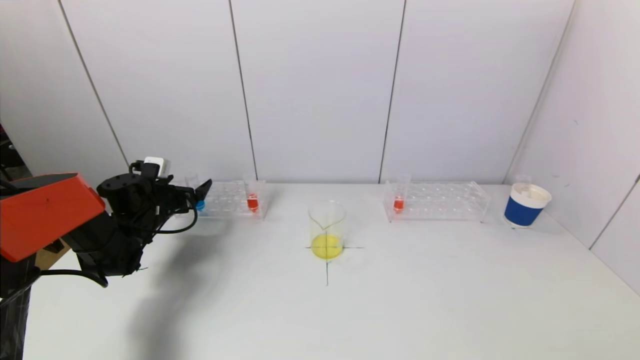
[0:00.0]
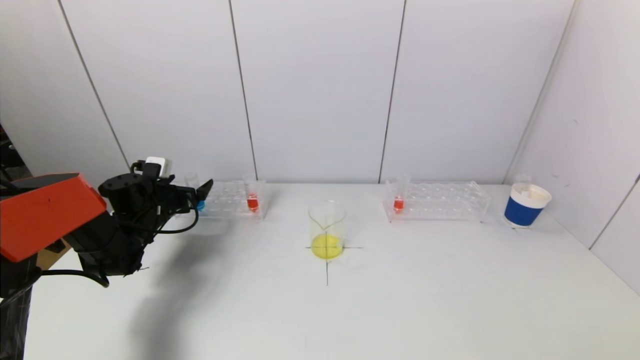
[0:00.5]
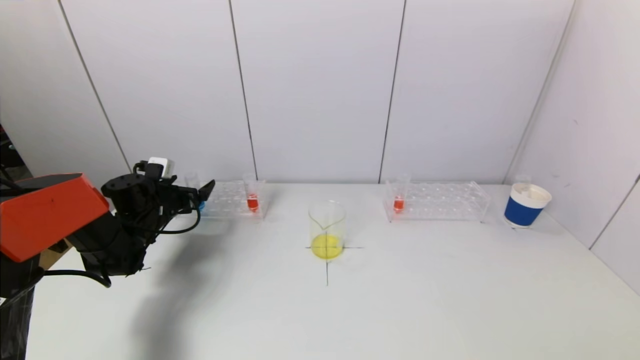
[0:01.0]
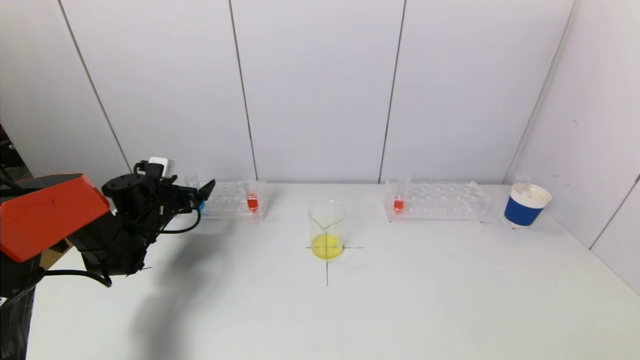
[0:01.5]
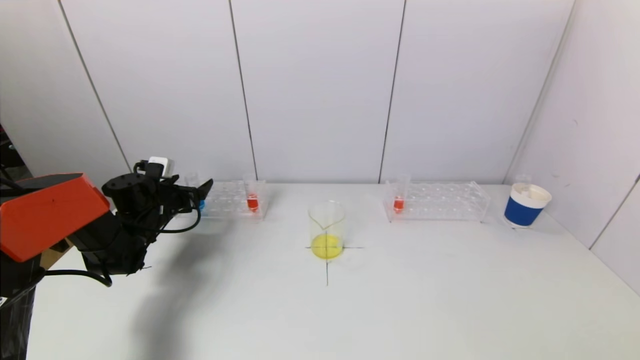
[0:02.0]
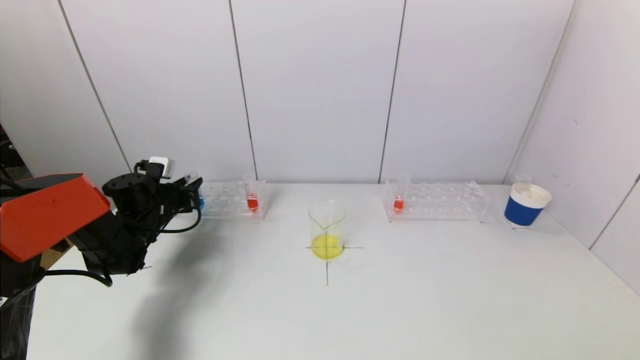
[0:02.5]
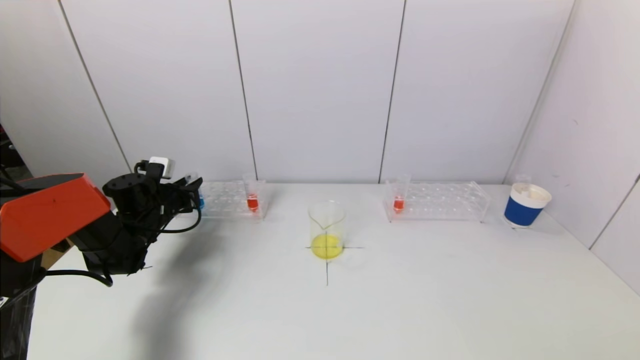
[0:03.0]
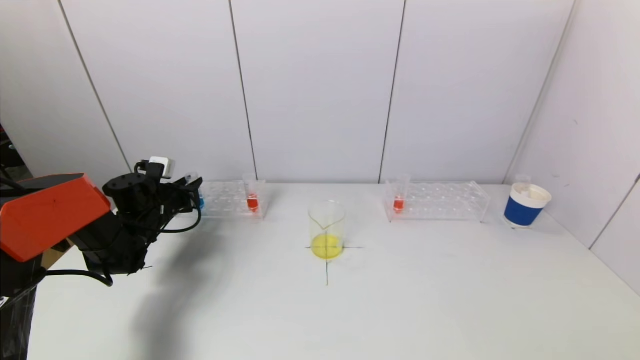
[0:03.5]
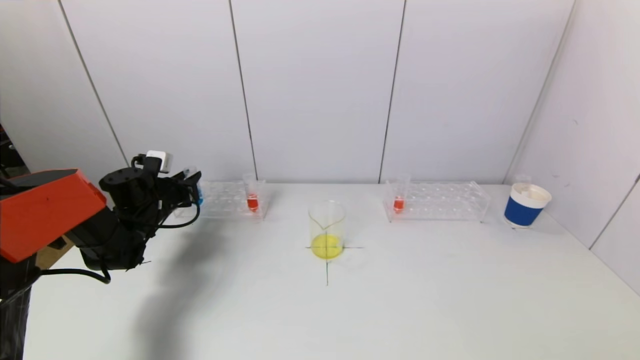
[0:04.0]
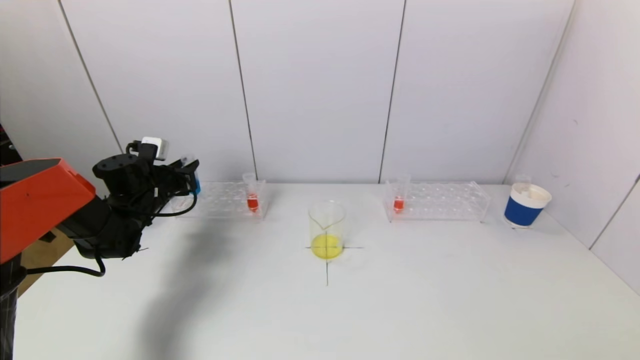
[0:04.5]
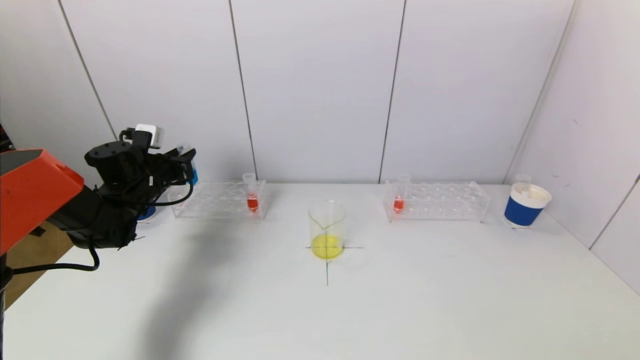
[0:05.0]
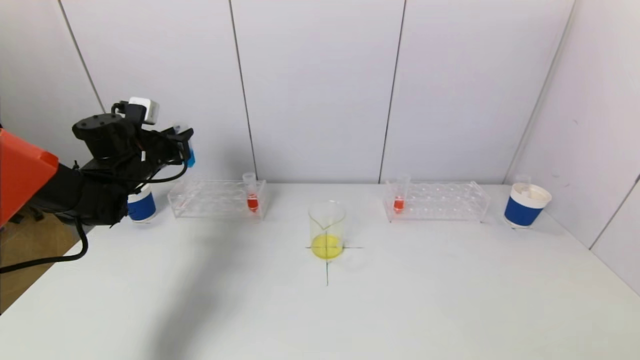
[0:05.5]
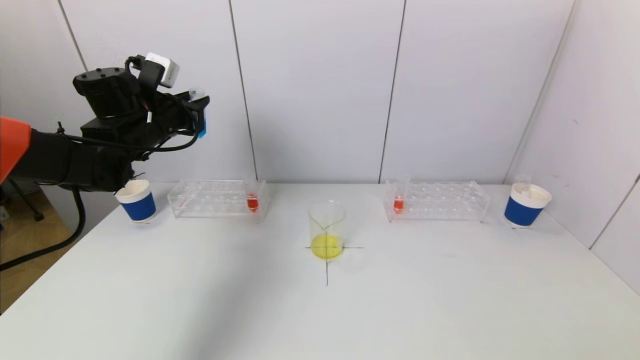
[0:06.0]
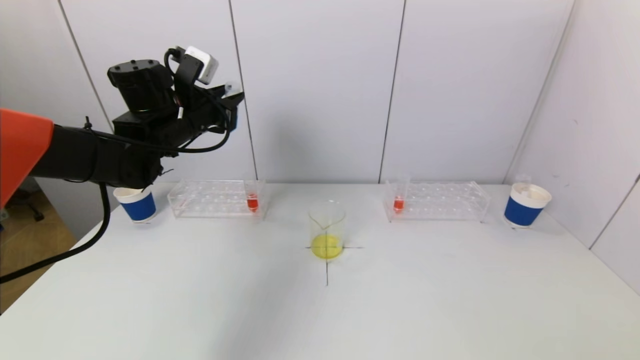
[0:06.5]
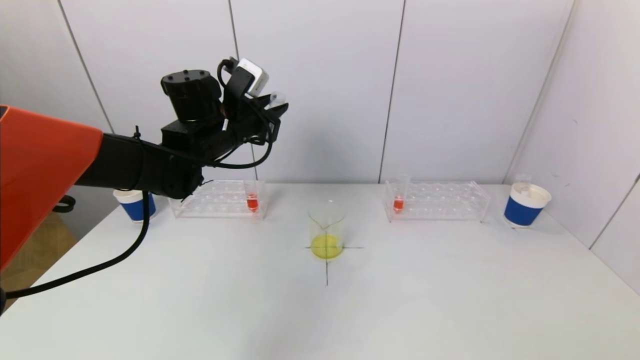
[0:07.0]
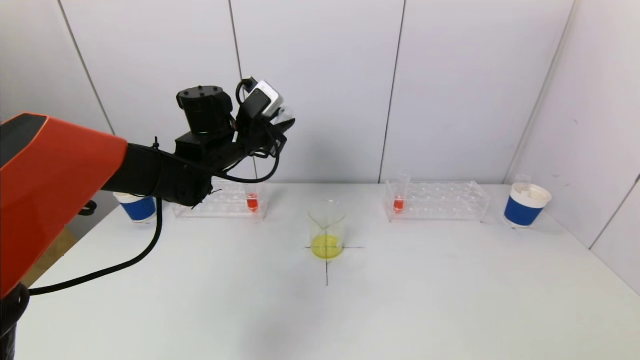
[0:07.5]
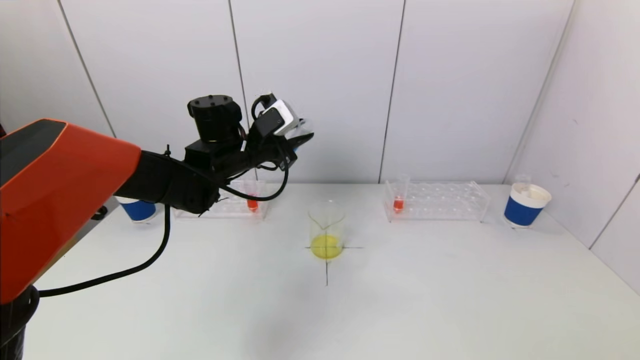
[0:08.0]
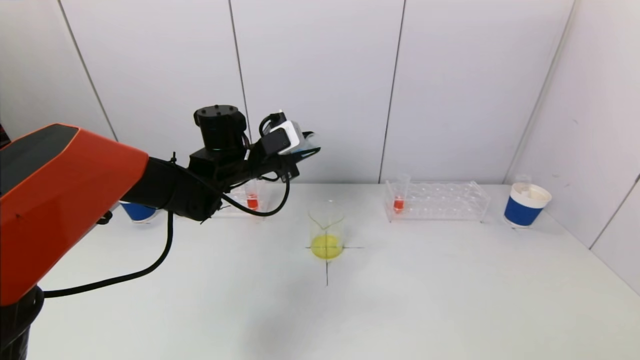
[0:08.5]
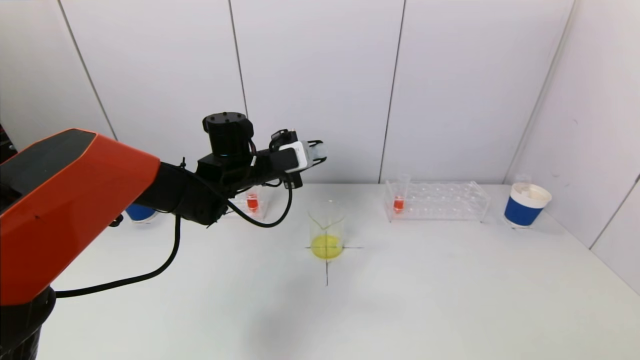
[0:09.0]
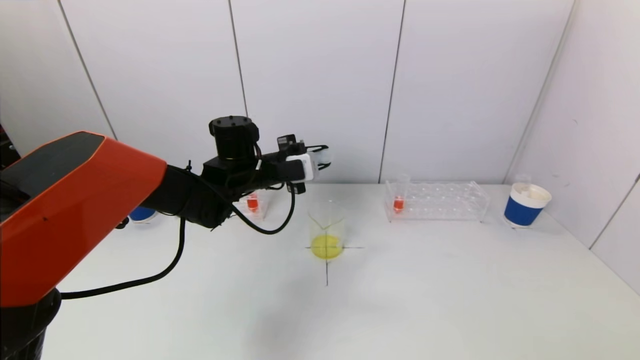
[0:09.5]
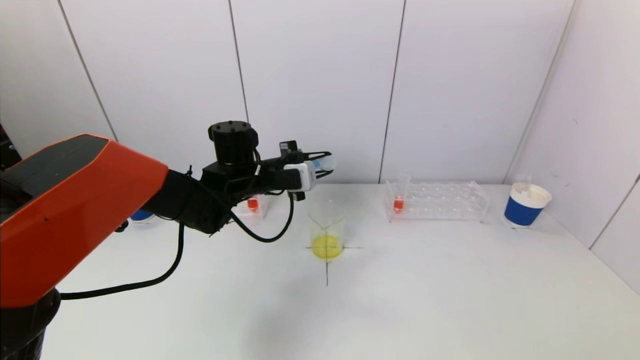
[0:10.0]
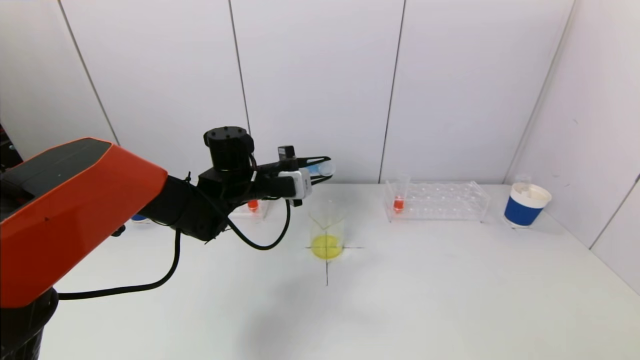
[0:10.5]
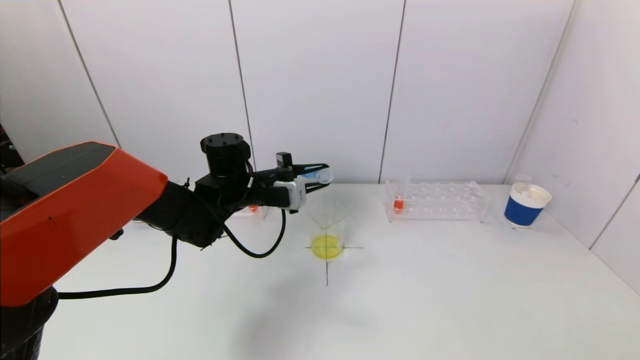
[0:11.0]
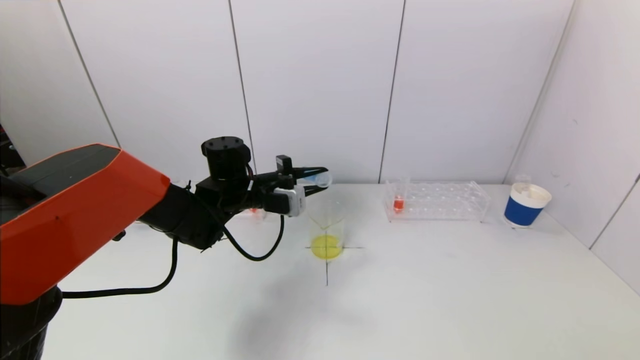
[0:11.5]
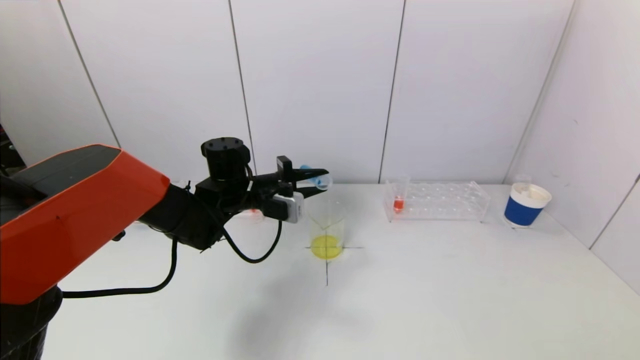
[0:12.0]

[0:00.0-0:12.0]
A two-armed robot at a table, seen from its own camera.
Task of the whole recording: pick up a test tube with pigment on left test tube rack and a test tube with pigment on right test tube rack by grippers and pour them into the beaker.
Step, 0:00.0 to 0:02.5: Grasp the blue reagent with the left gripper.
0:00.0 to 0:02.0: Both grippers stay put.
0:02.0 to 0:04.0: The left gripper closes.
0:04.0 to 0:06.0: The left gripper goes about 15 cm upward.
0:06.0 to 0:08.0: The left gripper goes approximately 15 cm to the right.
0:10.0 to 0:12.0: The grippers make only small movements.

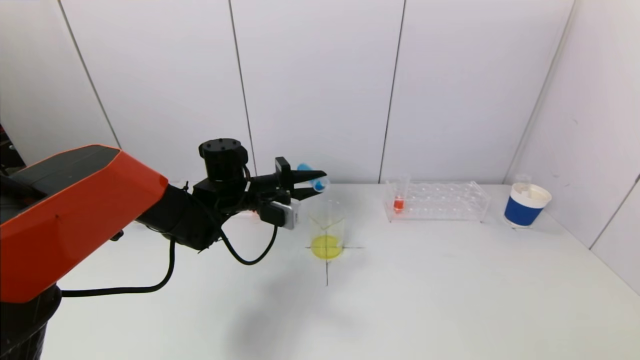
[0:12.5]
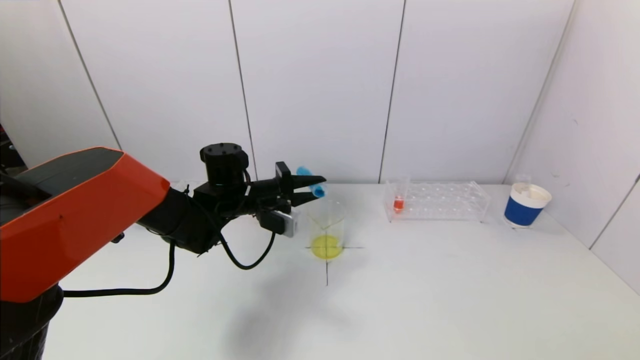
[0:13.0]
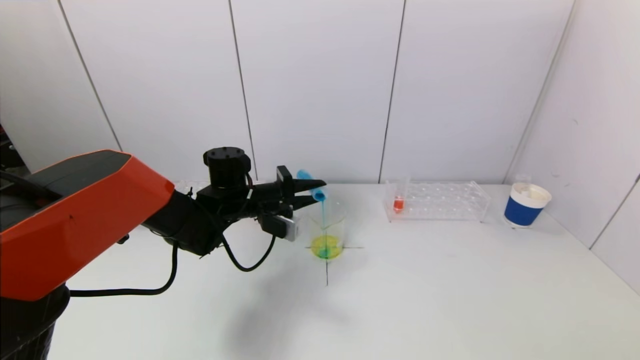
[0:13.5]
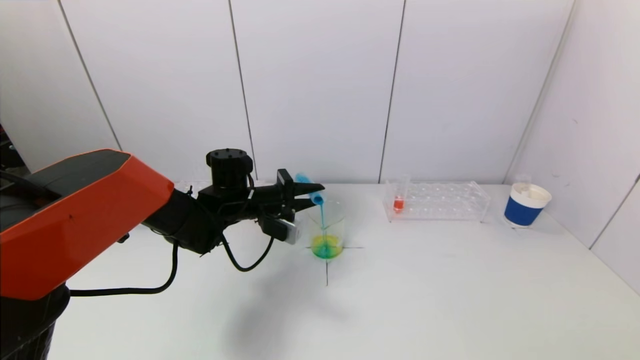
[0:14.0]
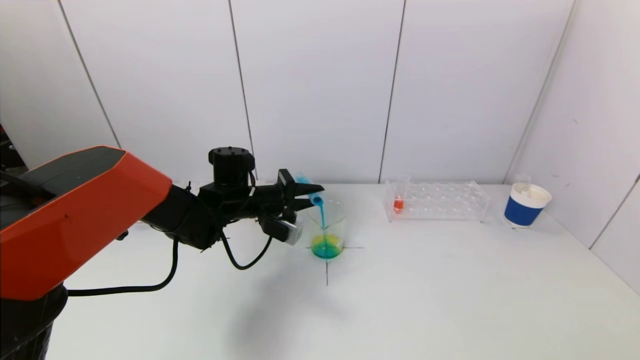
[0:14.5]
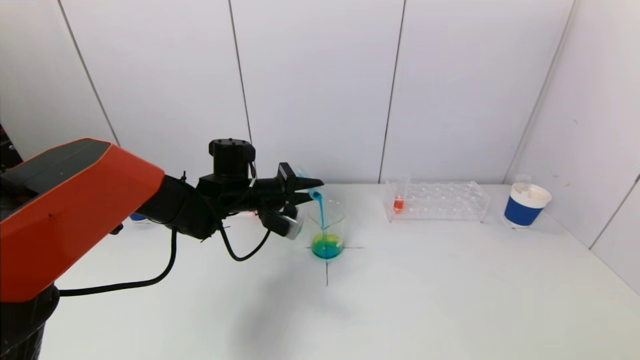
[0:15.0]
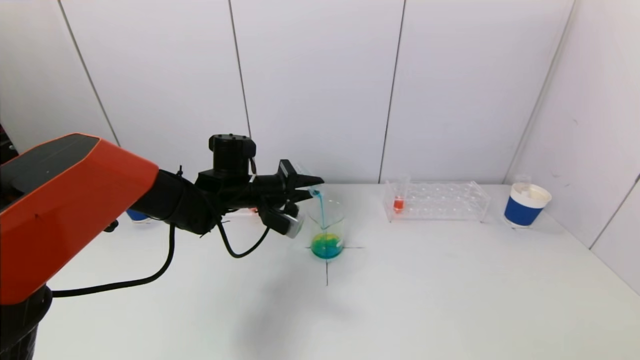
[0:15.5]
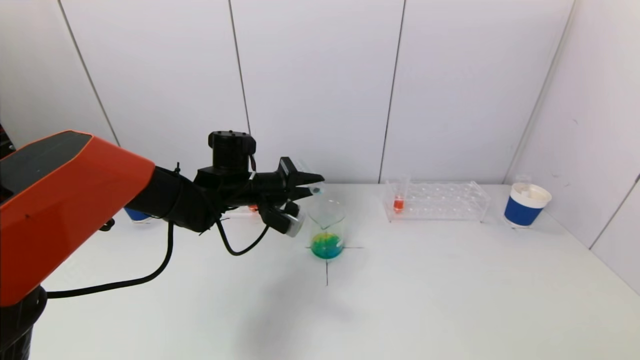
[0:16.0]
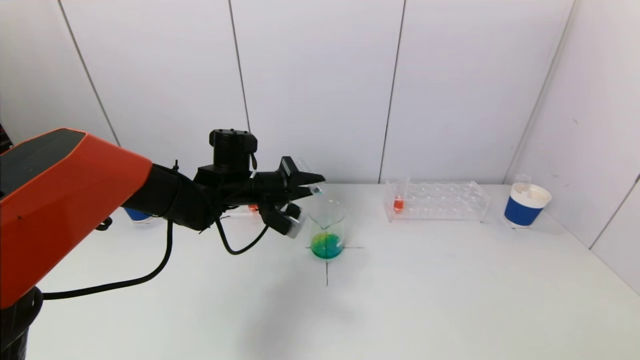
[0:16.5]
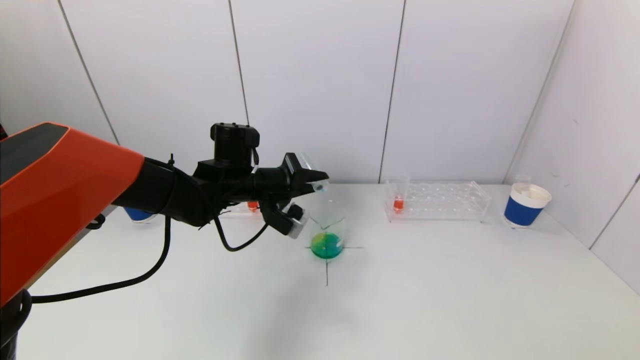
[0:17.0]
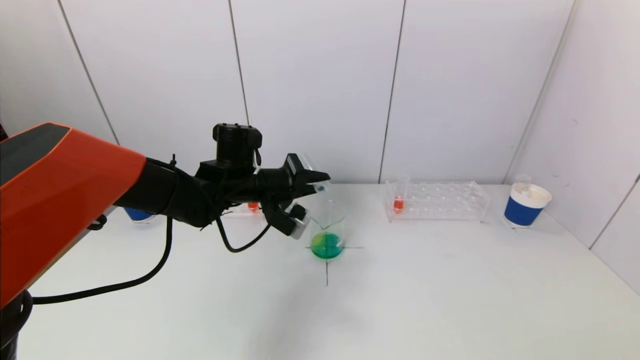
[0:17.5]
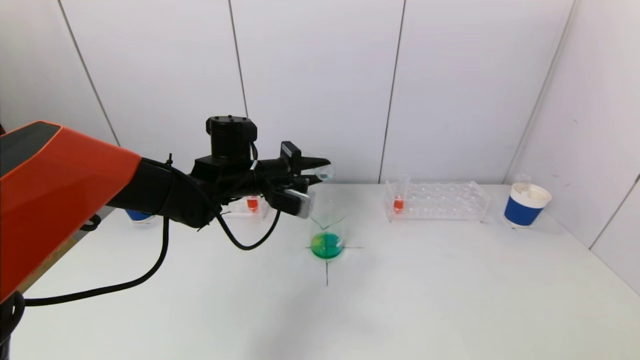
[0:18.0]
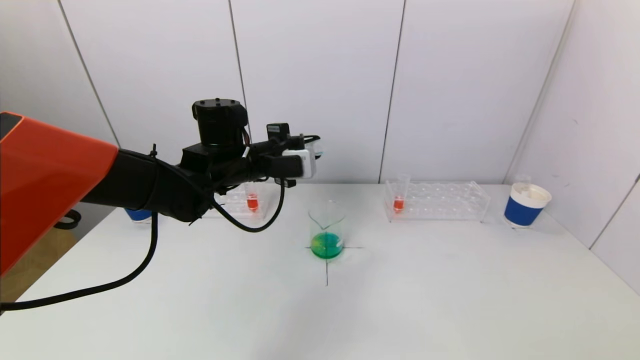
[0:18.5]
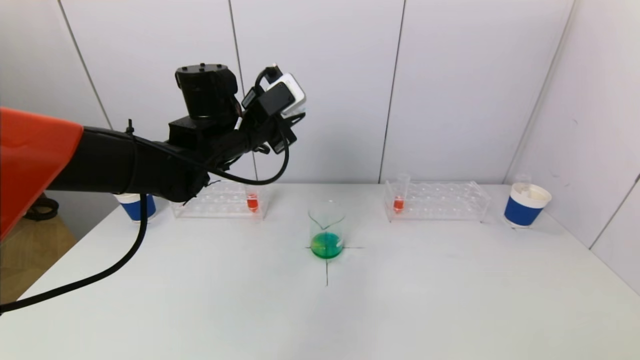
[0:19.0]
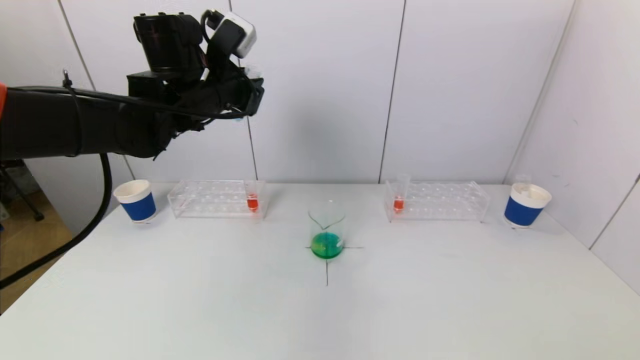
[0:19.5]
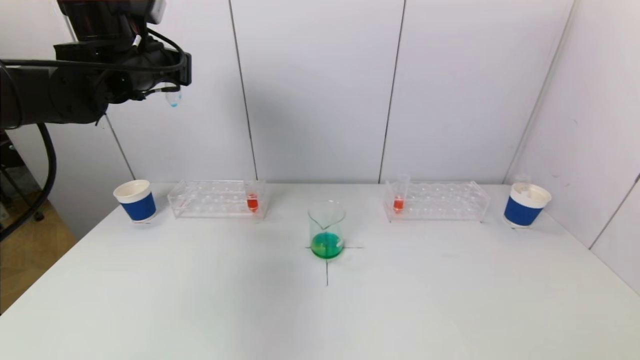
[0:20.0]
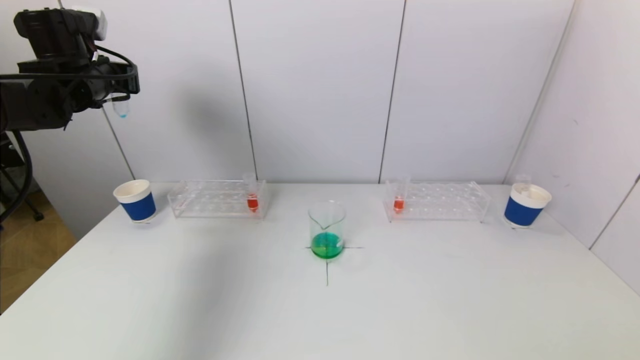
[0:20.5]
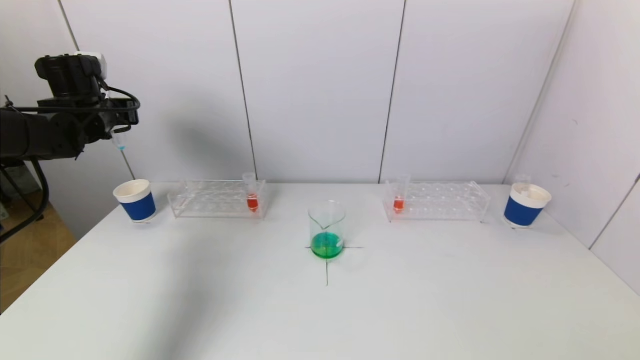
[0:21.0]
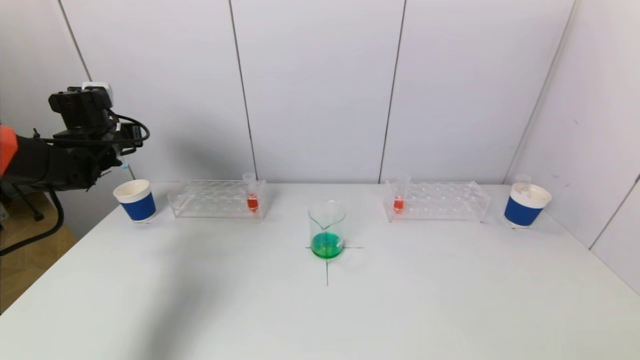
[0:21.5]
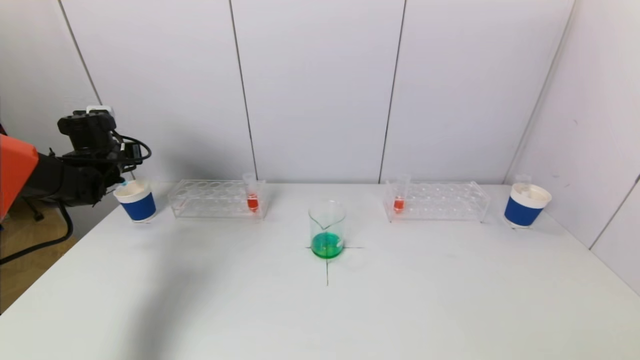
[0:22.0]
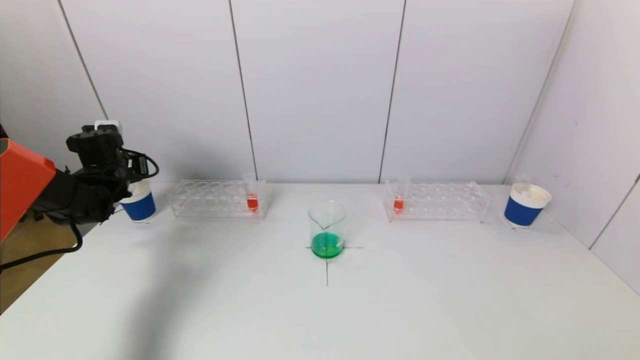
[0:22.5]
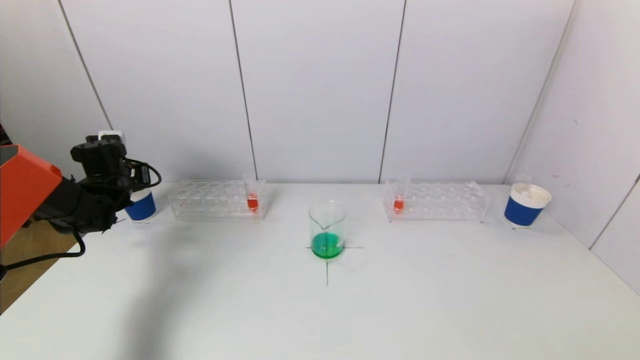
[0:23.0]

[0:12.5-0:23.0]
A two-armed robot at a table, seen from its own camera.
Task of the whole recording: pick up a test tube with pigment on left test tube rack and a test tube with pigment on right test tube rack by grippers and pour them into the beaker.
Step, 0:12.5 to 0:16.0: Pour the blue reagent into the graduated cylinder with the left gripper.
0:12.5 to 0:14.5: The grippers make only small movements.
0:14.5 to 0:16.5: The grippers move only a little.
0:16.5 to 0:19.0: The left gripper travels upward by some 10 cm.
0:19.0 to 0:21.0: The left gripper heads to the left, covering roughly 25 cm.
0:21.0 to 0:23.0: The left gripper is displaced downward by approximately 15 cm.
